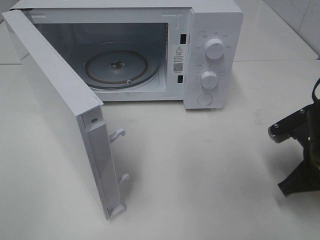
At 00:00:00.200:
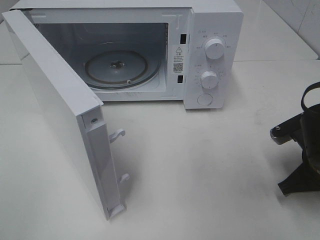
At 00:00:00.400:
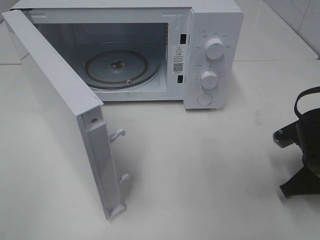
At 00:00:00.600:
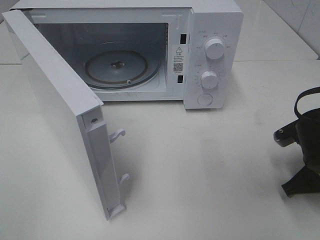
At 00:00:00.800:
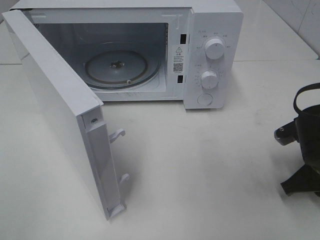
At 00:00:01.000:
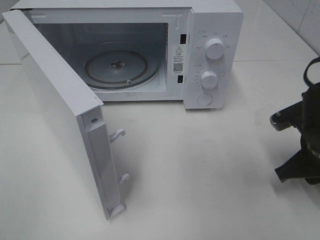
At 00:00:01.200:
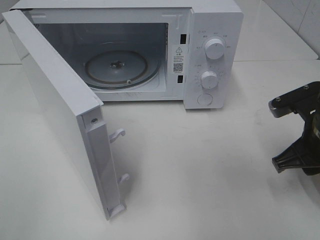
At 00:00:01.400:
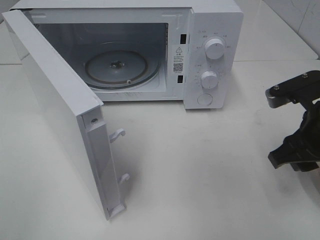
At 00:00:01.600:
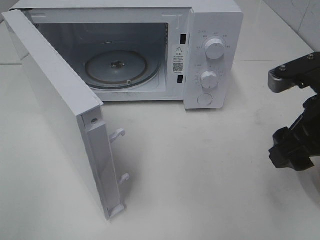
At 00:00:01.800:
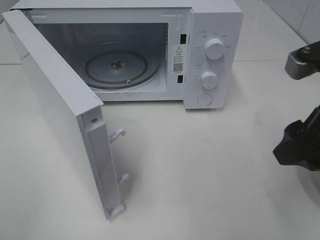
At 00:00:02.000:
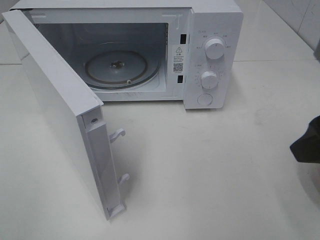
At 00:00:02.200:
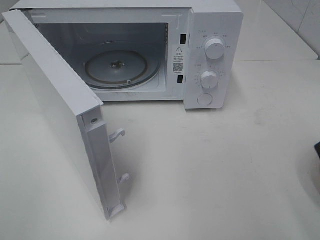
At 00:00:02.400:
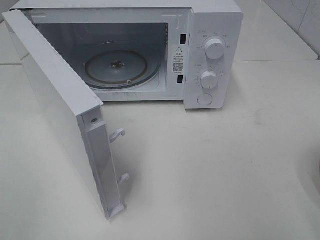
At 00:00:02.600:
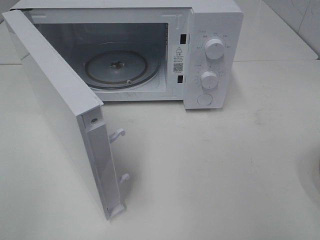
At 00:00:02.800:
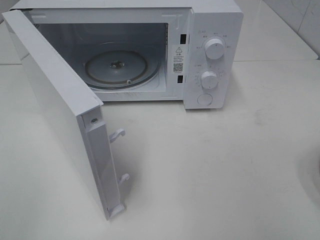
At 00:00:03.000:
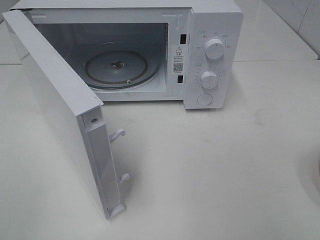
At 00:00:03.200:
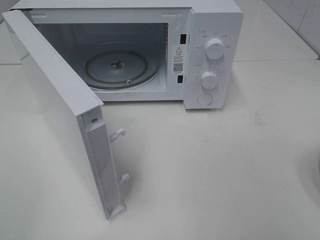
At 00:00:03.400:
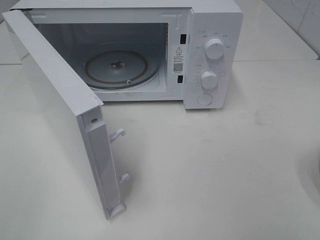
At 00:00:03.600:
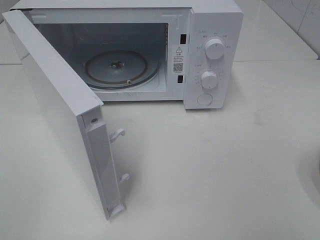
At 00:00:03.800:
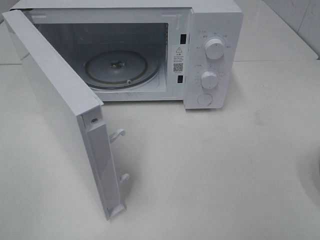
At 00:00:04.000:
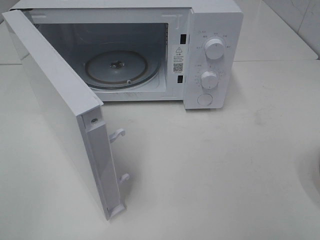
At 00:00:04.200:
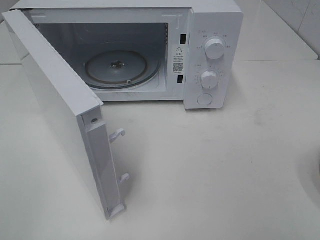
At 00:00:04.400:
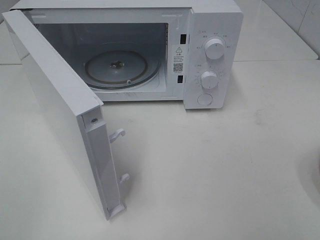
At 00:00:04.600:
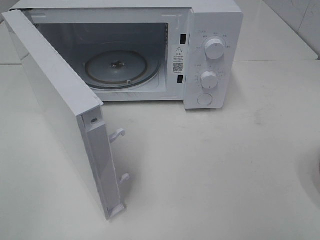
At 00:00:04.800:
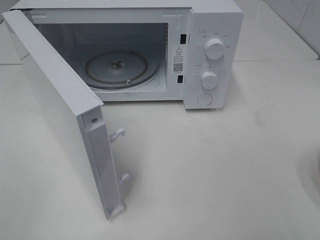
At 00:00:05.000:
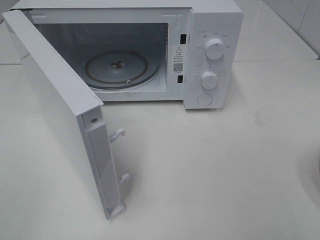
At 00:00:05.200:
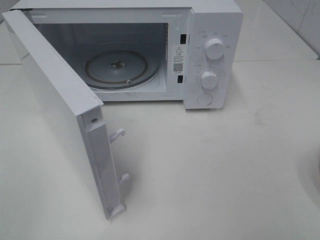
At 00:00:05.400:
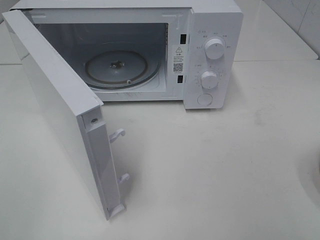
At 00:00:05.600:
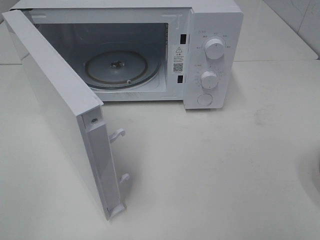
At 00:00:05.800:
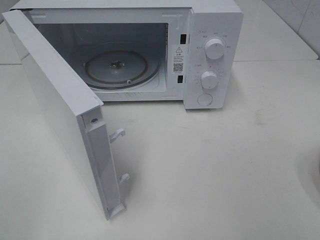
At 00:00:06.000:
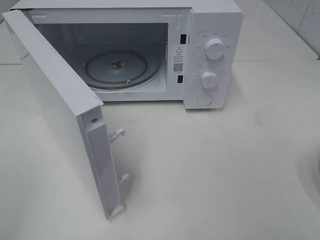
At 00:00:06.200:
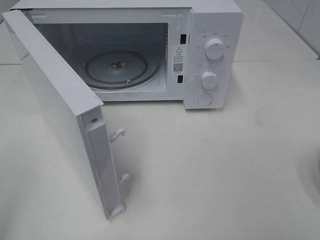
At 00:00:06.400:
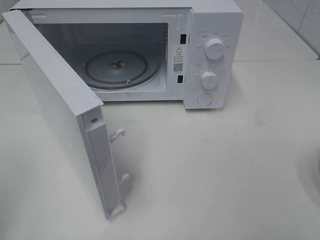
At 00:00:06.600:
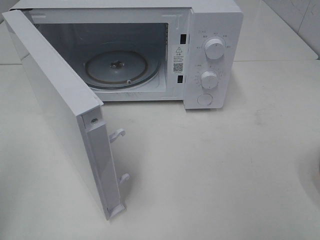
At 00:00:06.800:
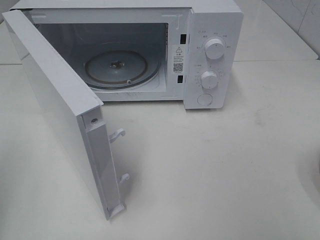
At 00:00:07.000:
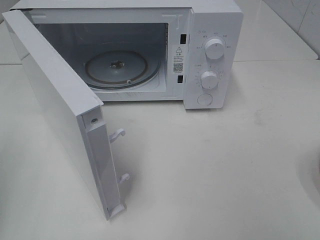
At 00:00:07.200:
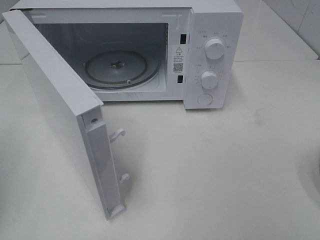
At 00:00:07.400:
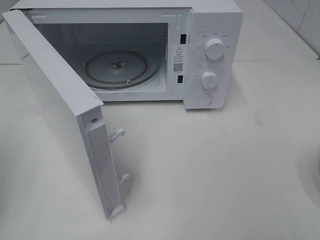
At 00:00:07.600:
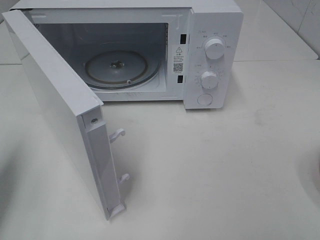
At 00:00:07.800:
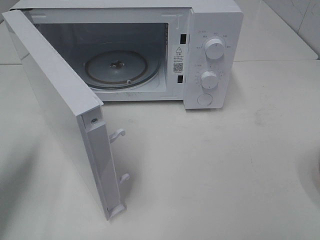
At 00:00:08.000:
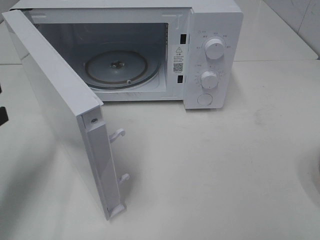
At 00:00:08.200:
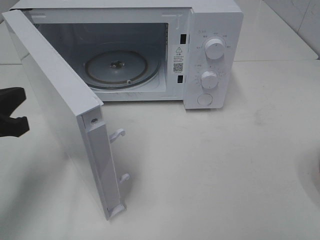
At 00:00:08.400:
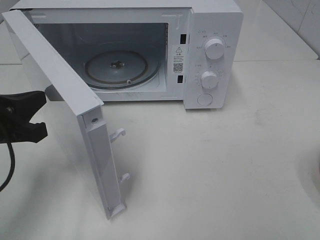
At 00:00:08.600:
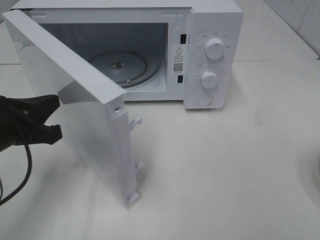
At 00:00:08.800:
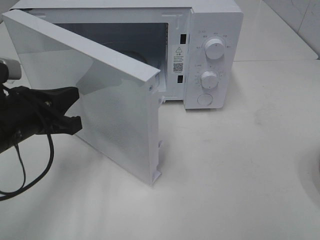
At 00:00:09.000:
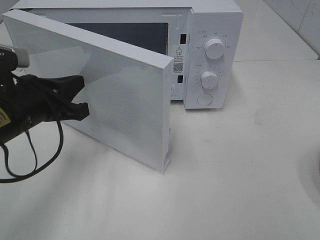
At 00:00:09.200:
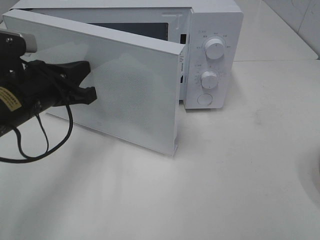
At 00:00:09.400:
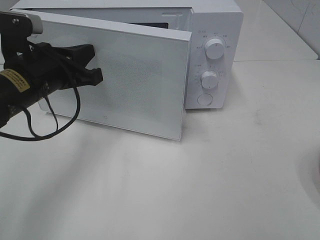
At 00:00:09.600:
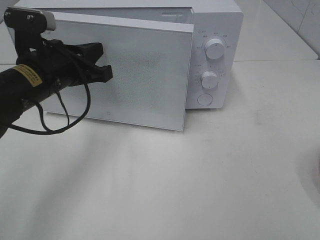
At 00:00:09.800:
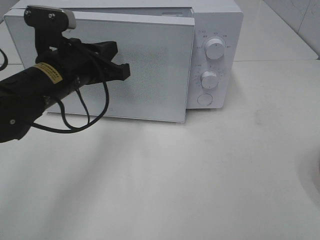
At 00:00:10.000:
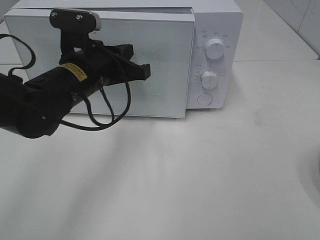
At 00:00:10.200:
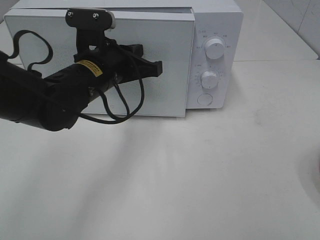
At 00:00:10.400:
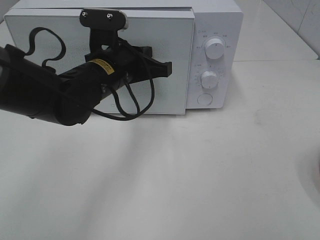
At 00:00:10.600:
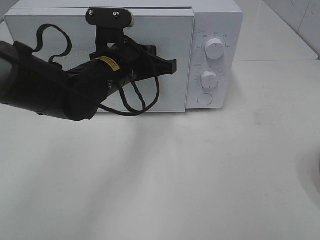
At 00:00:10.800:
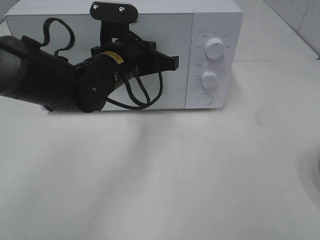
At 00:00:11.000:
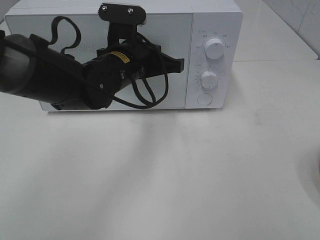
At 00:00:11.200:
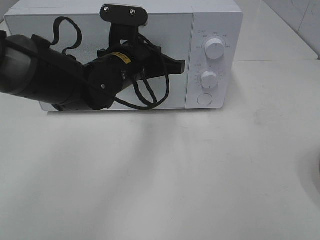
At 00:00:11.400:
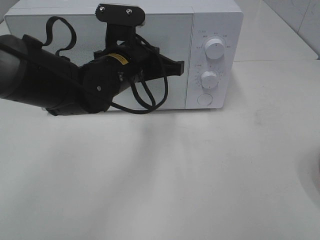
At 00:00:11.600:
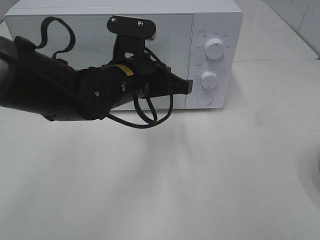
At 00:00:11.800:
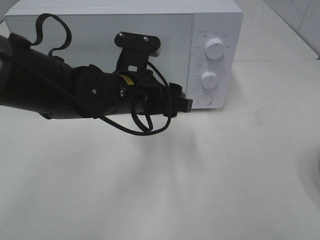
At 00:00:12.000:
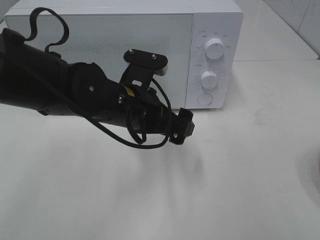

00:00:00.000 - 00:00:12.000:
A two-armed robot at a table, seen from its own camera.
Task of the whole recording: Heat the burger.
Step, 00:00:01.000 - 00:00:11.400: Left hand: close the microwave door.
00:00:00.000 - 00:00:01.600: The right gripper travels upward by approximately 10 cm, and opens.
00:00:01.600 - 00:00:03.000: The right gripper moves backward, upward and to the right, about 20 cm.
00:00:06.000 - 00:00:07.600: The left gripper is displaced forward and downward by some 20 cm, and closes its fingers.
00:00:07.600 - 00:00:09.000: The left gripper shifts roughly 15 cm to the right, forward and downward.
00:00:09.000 - 00:00:10.400: The left gripper heads to the right and forward, covering roughly 15 cm.
00:00:10.400 - 00:00:12.000: The left gripper is displaced backward by roughly 5 cm, and opens up.

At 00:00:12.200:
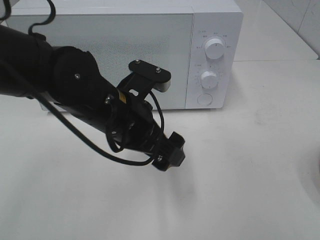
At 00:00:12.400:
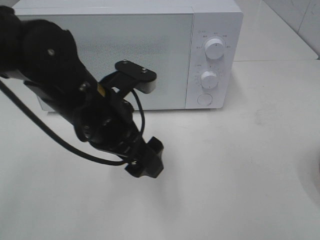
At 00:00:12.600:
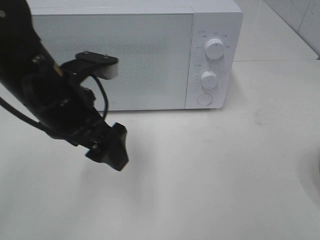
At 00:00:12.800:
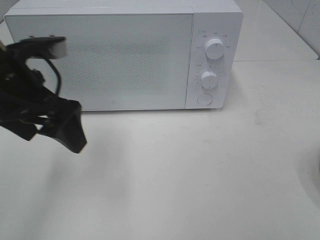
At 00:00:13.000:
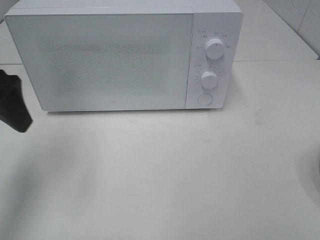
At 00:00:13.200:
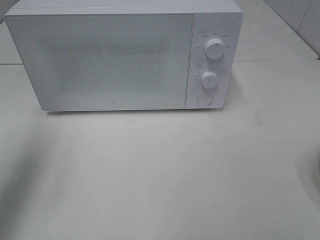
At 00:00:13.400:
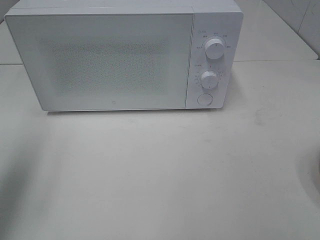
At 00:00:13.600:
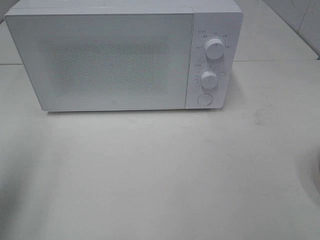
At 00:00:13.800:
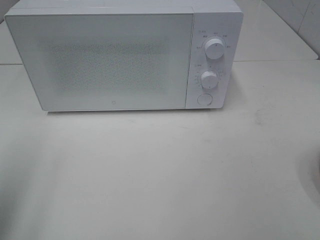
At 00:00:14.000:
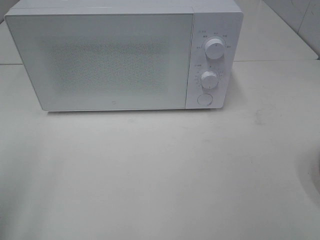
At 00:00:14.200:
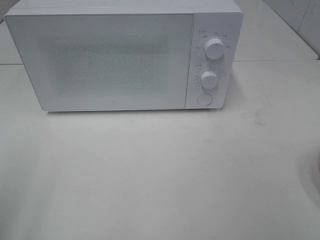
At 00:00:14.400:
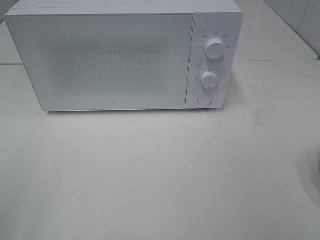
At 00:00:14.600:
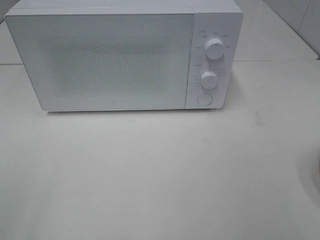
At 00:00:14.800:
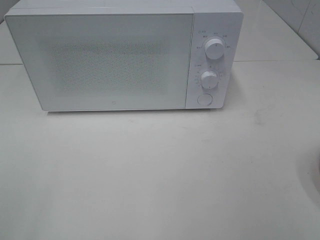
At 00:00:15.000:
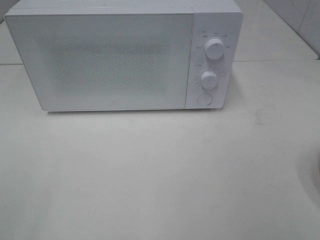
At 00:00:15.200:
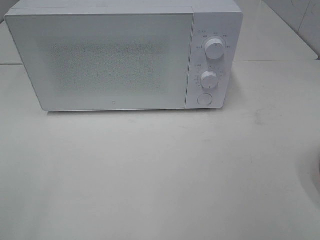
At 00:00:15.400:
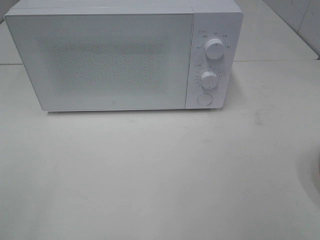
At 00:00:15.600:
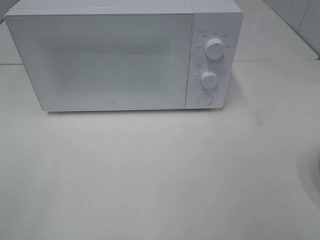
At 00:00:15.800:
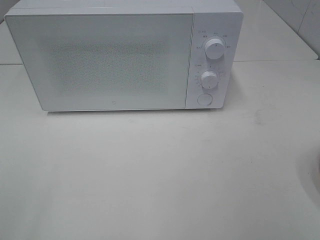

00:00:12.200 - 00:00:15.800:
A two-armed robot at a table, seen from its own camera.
Task of the whole recording: Heat the burger.
00:00:12.200 - 00:00:14.000: The left gripper heads to the left and backward, covering about 30 cm.
